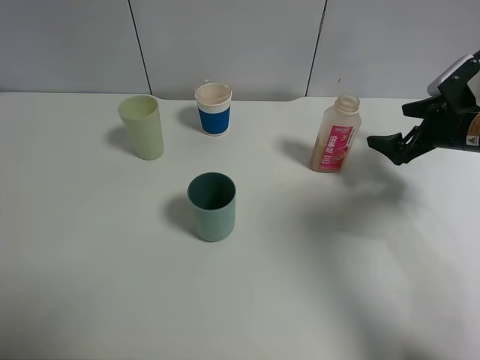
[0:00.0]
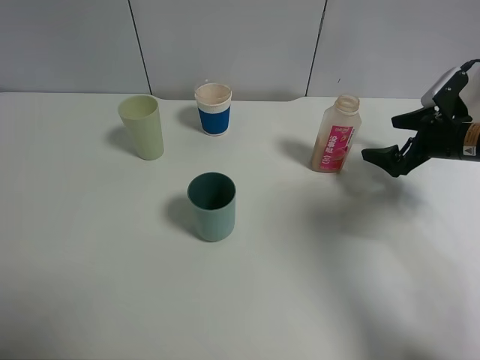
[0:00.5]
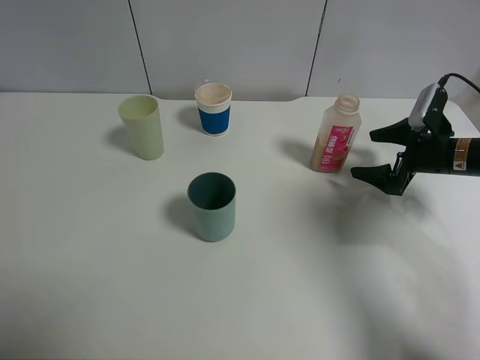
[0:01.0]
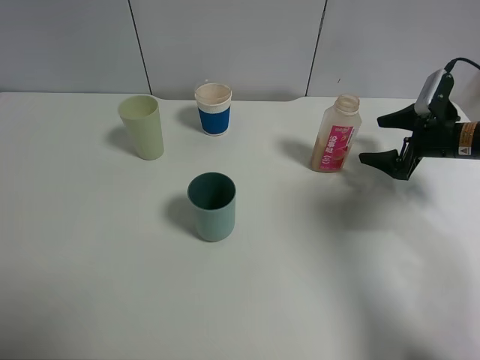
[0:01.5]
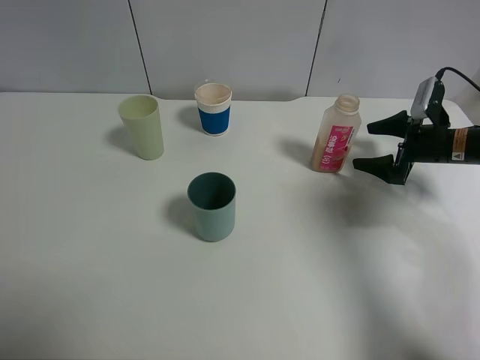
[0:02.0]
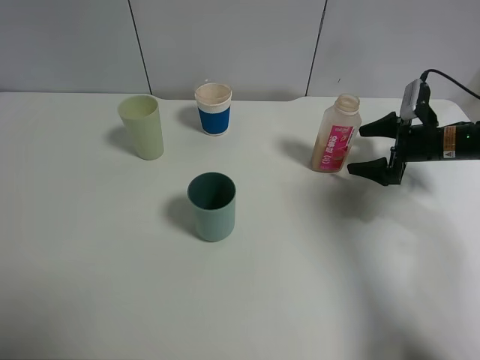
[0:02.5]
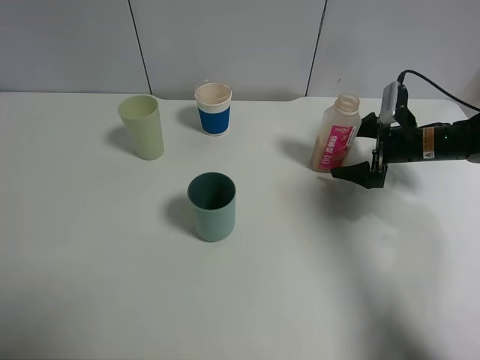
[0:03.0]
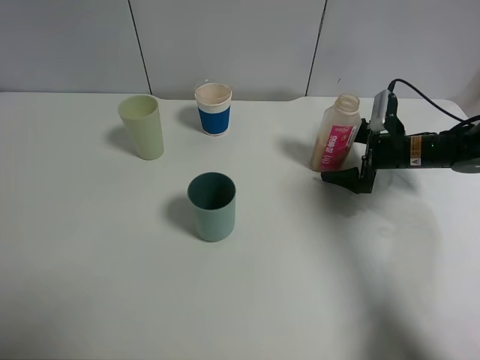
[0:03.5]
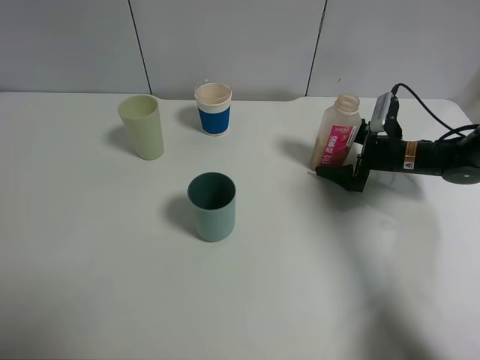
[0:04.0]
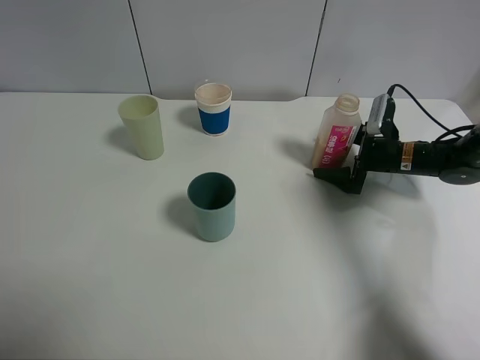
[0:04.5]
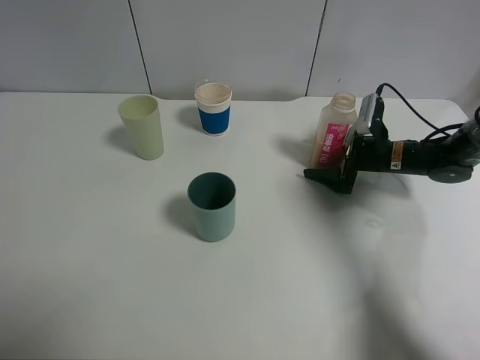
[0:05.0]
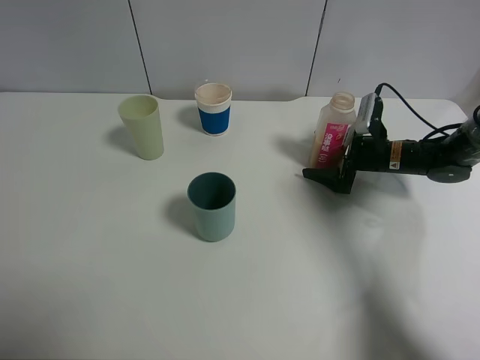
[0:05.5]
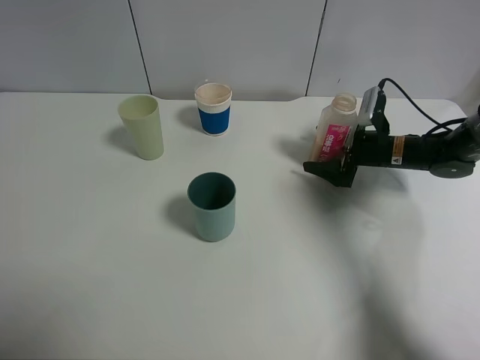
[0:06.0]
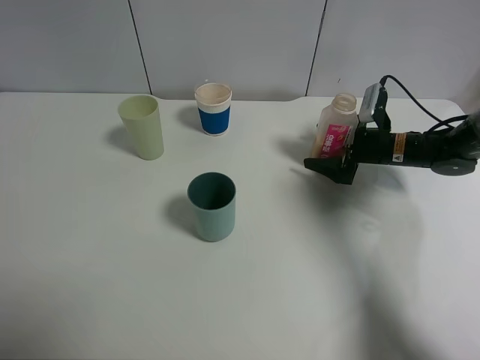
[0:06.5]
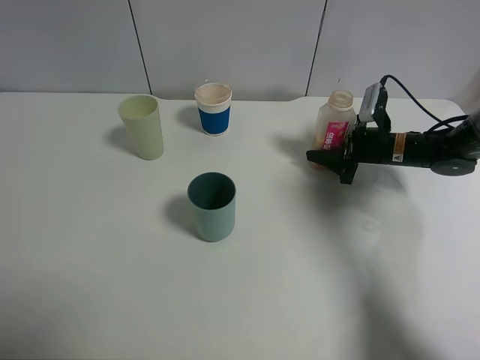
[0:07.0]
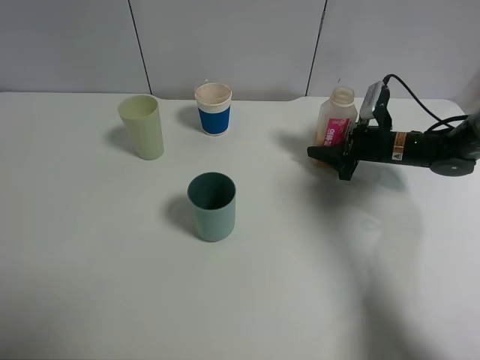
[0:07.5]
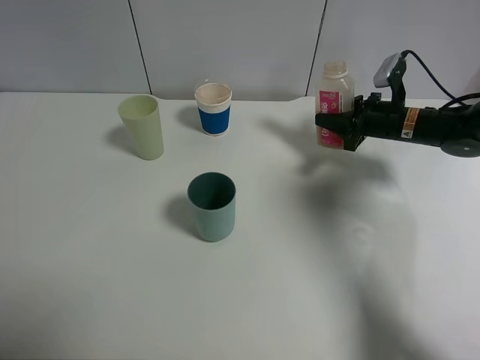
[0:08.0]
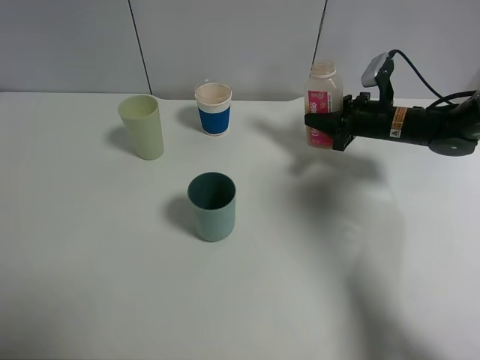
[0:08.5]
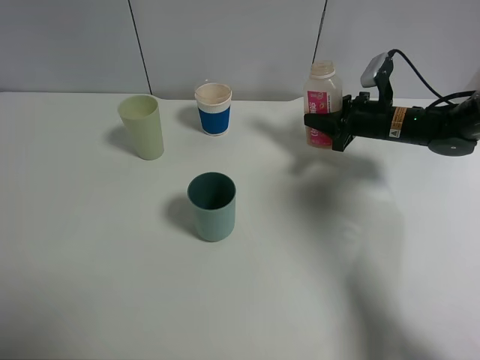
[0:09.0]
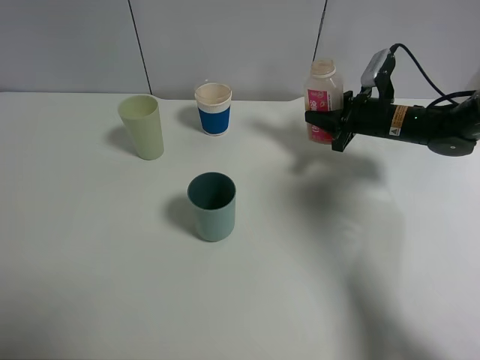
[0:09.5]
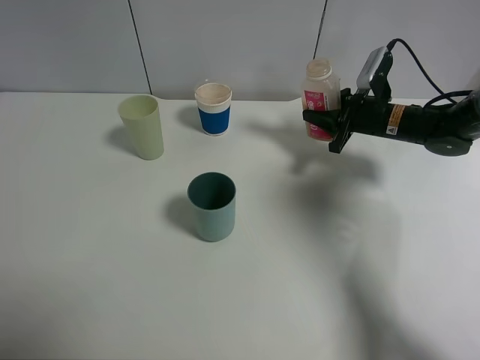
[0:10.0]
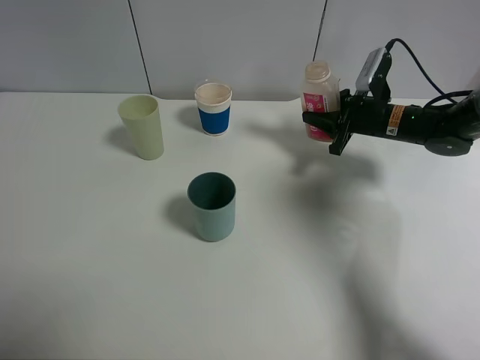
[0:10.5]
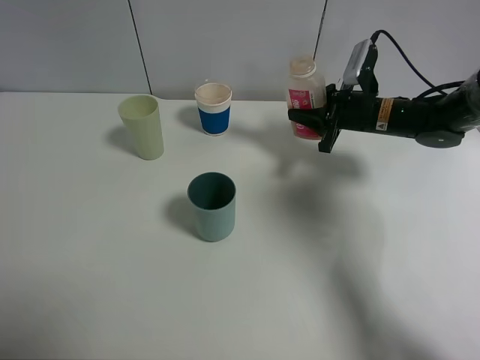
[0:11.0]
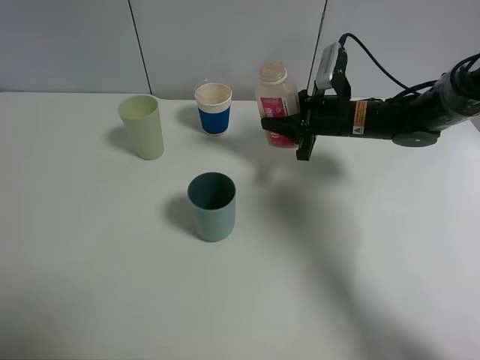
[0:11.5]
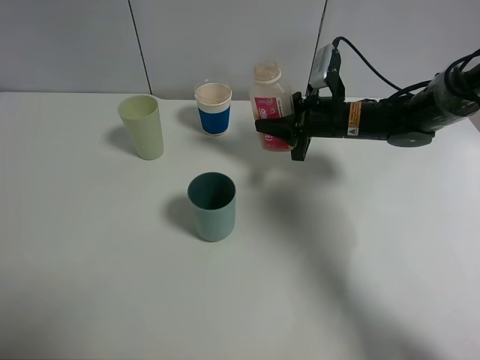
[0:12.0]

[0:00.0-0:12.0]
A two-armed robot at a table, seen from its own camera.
Task of the whole recording: use a clamp to hold the bottle of the drink, pour the beverage into a random cup, then clamp the cup containing the drink and pour the drink into another random cup.
Step, 0:00.0 to 0:07.5: Pick up the drink bottle with right gripper.
0:02.0 to 0:04.0: The right gripper heads to the left, covering some 5 cm.
0:04.0 to 0:06.0: There are only small adjustments of the grippers.
0:06.0 to 0:08.0: The right gripper moves upward, some 5 cm, and closes.
0:08.0 to 0:10.0: The grippers stay close to where they were, moving slightly.
0:10.0 to 0:12.0: The right gripper shifts about 10 cm to the left.

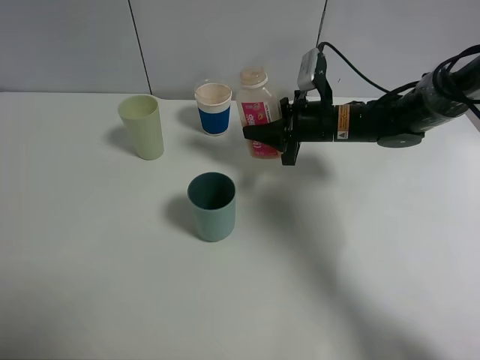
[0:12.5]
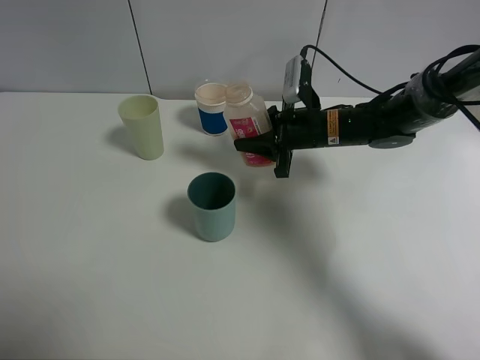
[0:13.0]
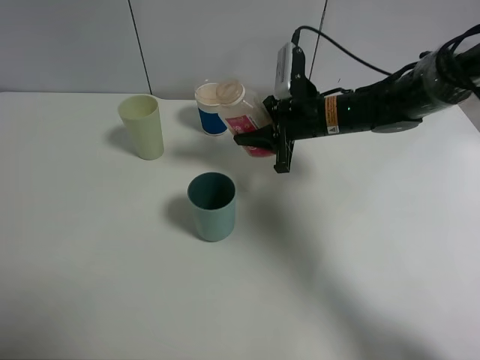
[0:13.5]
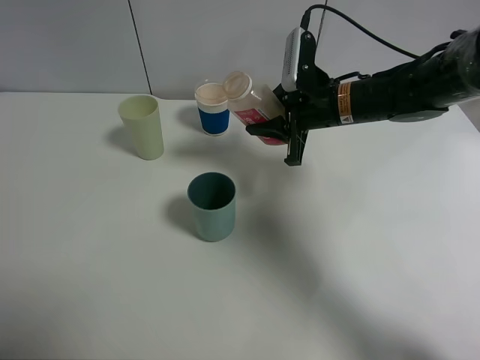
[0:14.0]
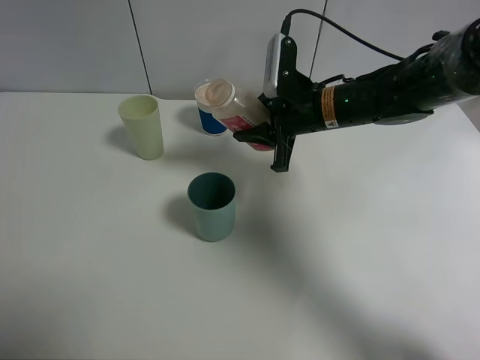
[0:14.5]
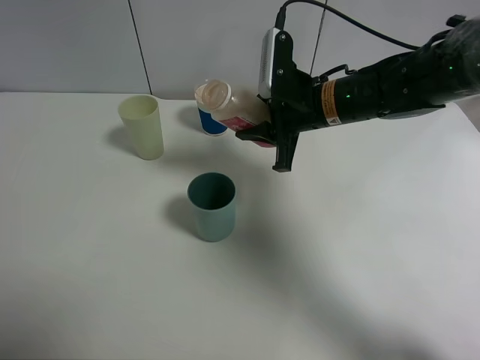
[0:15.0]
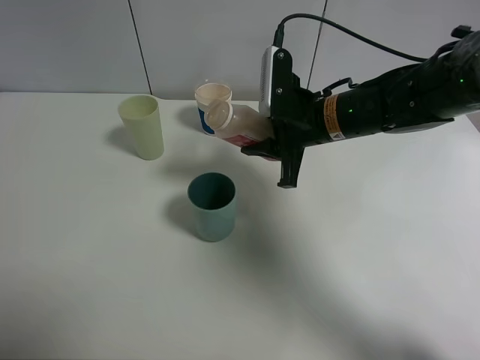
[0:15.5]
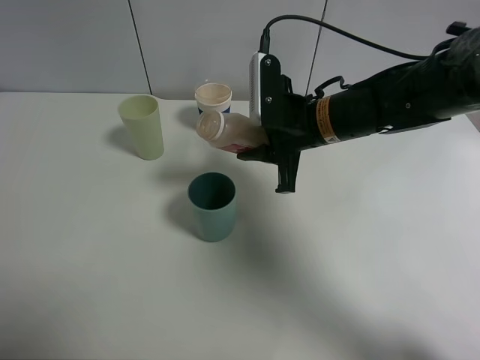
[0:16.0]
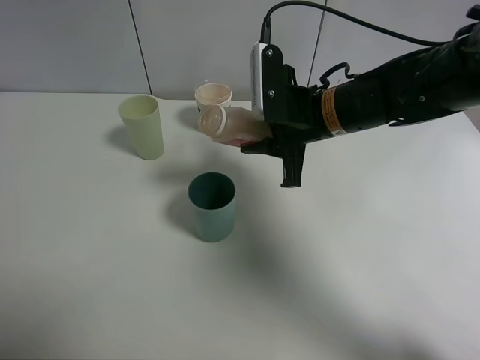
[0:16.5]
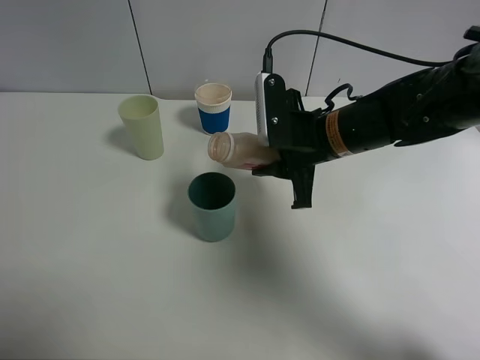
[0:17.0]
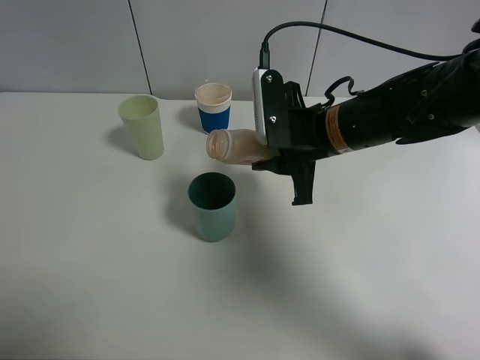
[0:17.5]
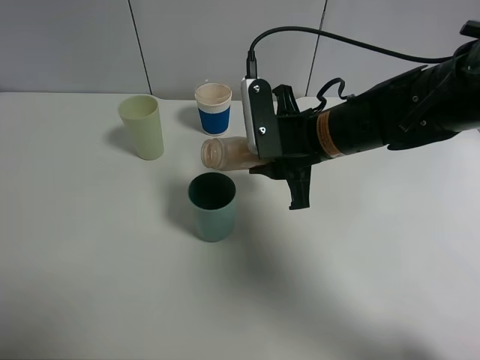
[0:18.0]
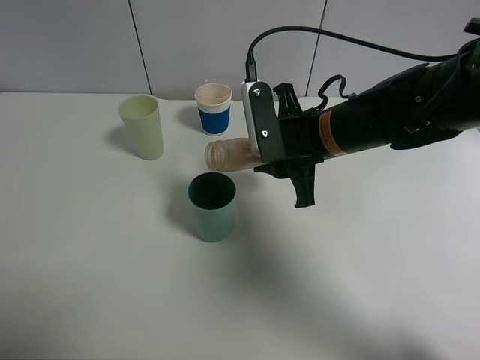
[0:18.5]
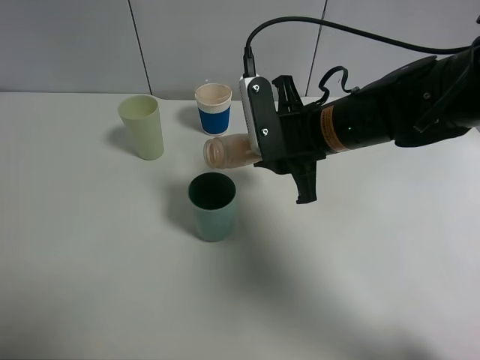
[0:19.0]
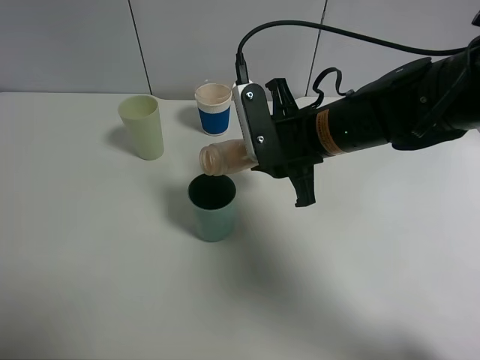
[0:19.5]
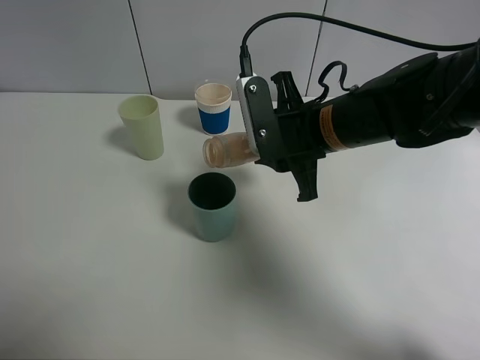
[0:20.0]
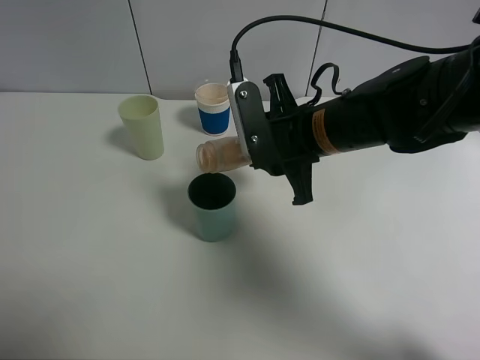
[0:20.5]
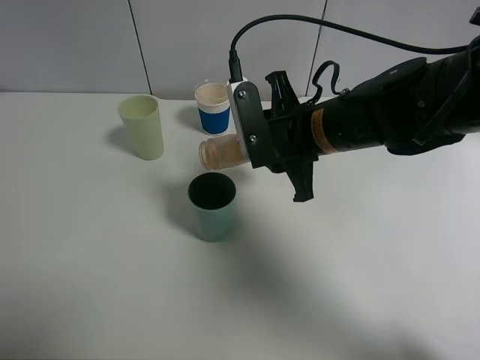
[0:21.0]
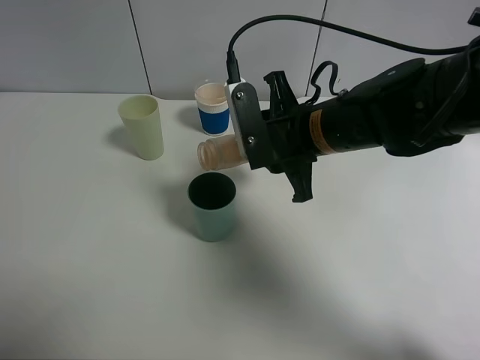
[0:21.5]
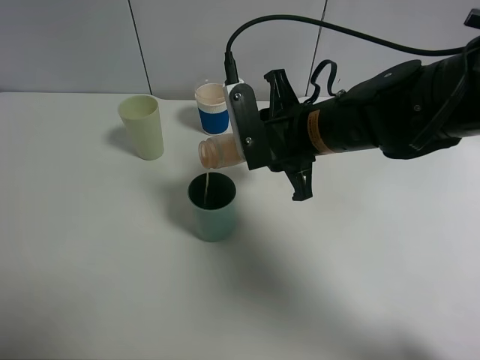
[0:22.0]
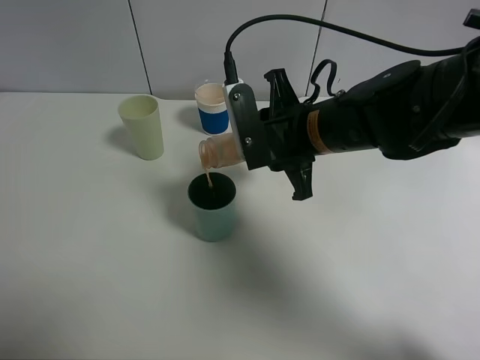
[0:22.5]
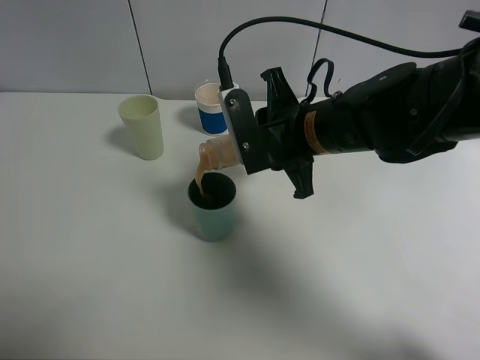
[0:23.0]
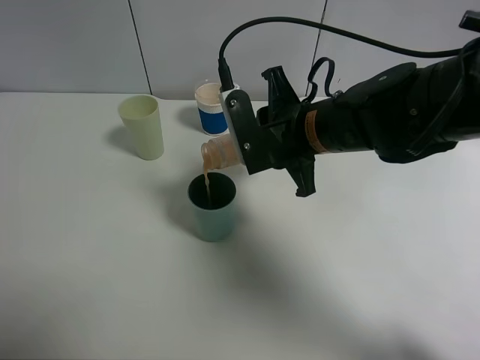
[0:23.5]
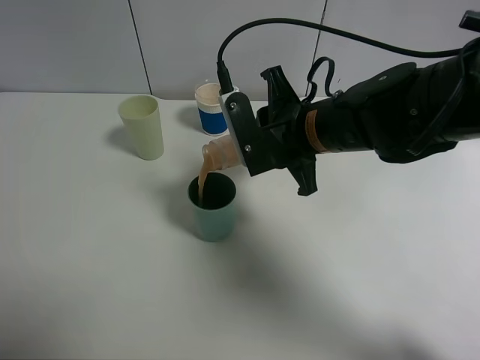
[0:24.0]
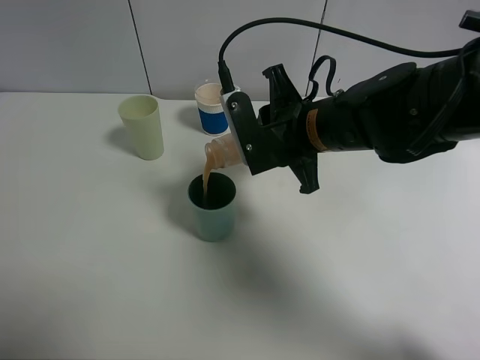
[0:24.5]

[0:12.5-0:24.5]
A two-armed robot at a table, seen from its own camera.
Task of the whole recording: use a clamp to hold the bottle of the drink, pour the beverage into a random cup, then clamp the cup containing the drink and pour the drink into another random cup.
0:12.5 to 0:14.5: The right gripper ends up roughly 5 cm from where it was.
0:14.5 to 0:16.5: The right gripper shifts some 5 cm backward.
0:16.5 to 0:18.5: The grippers make only small movements.
0:18.5 to 0:22.5: There are only small adjustments of the grippers.
0:22.5 to 0:24.5: The grippers stay close to where they were, moving slightly.

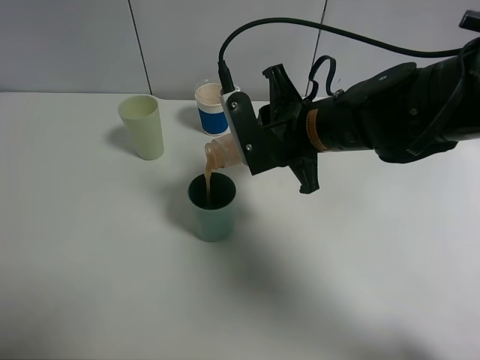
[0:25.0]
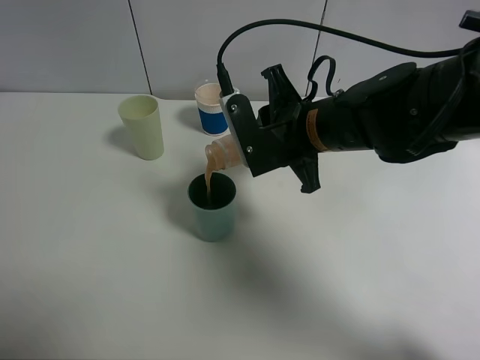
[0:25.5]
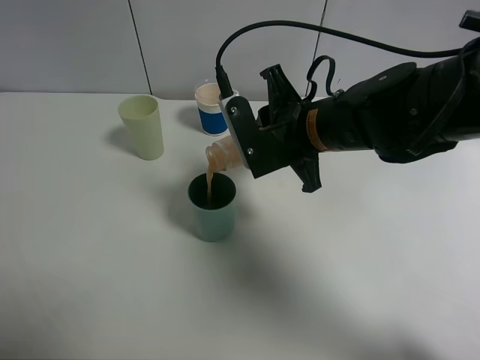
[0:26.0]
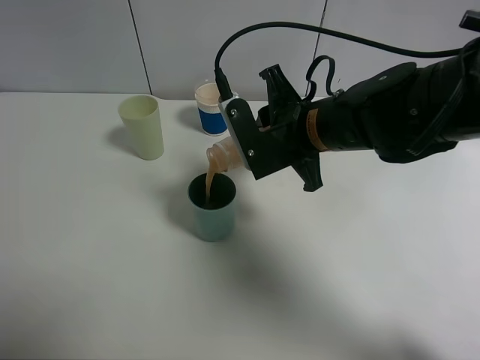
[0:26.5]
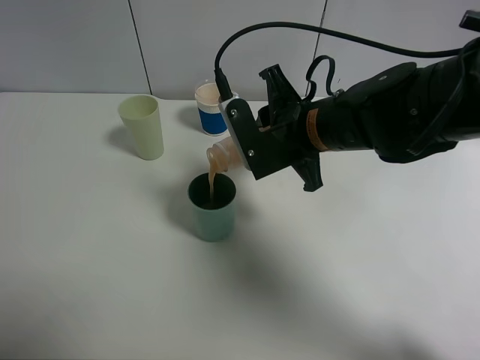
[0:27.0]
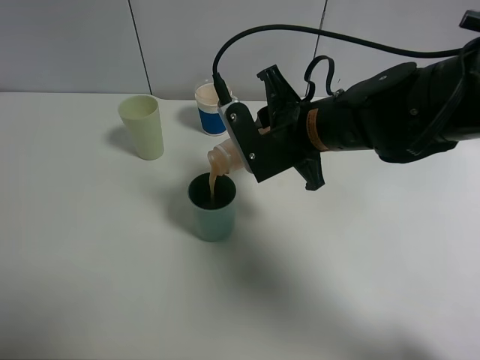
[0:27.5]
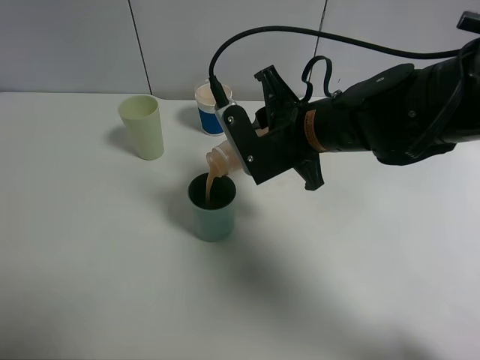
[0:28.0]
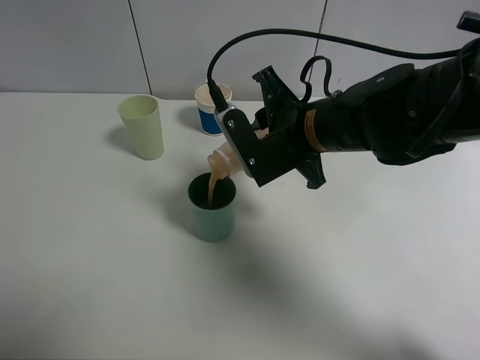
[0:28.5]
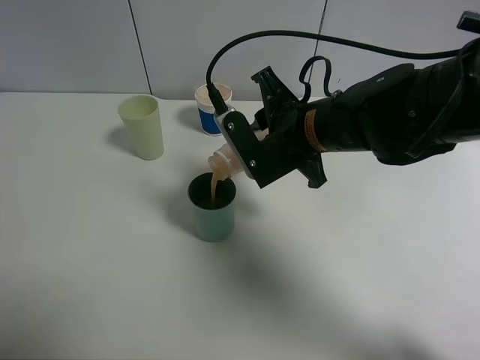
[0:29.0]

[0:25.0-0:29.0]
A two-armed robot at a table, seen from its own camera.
Task of the whole recording: use a clamp to hold the bottle of the drink, pour the beverage into a random cup, then clamp the cup containing the drink and pour the drink into another random cup.
0:25.0 to 0:27.0: Both grippers stay about where they are.
0:27.0 to 0:29.0: There are only small adjustments of the grippers.
